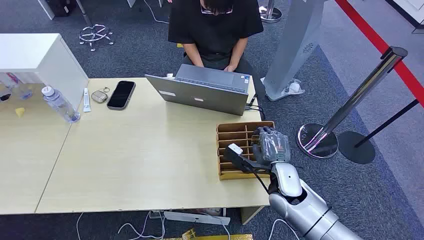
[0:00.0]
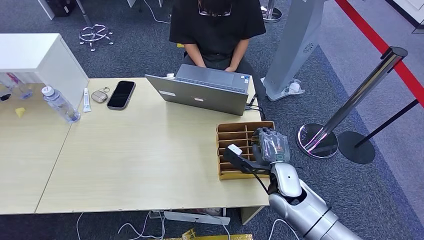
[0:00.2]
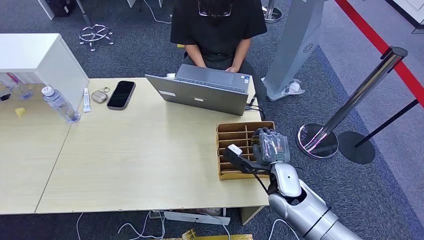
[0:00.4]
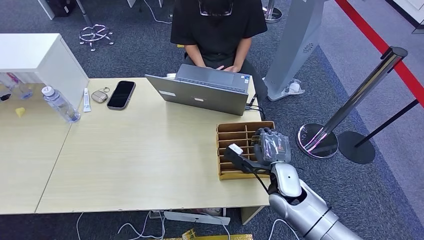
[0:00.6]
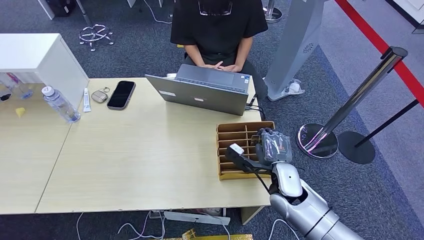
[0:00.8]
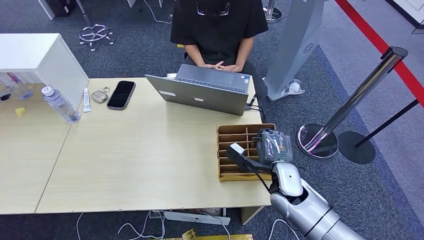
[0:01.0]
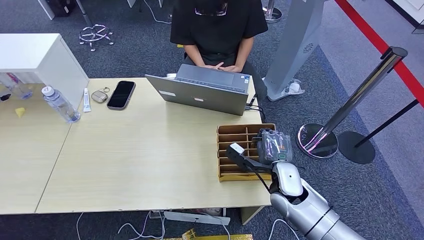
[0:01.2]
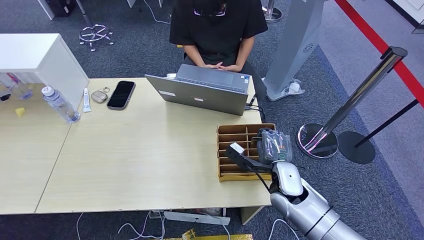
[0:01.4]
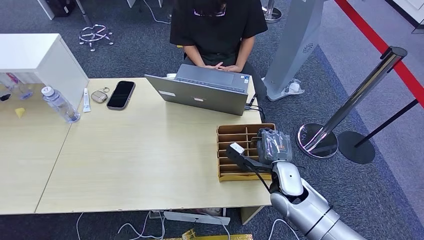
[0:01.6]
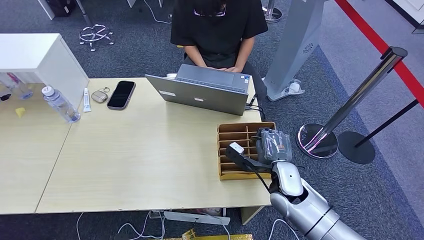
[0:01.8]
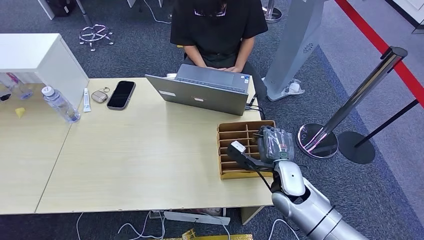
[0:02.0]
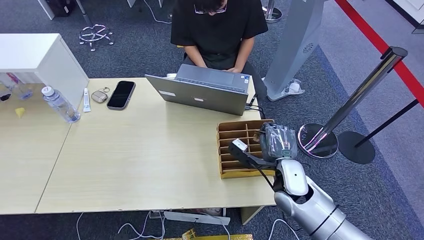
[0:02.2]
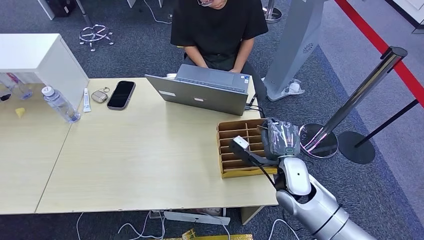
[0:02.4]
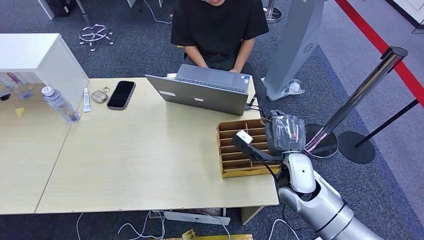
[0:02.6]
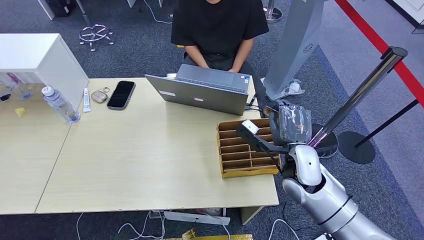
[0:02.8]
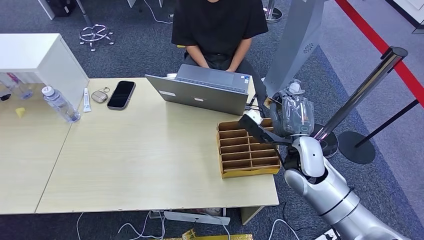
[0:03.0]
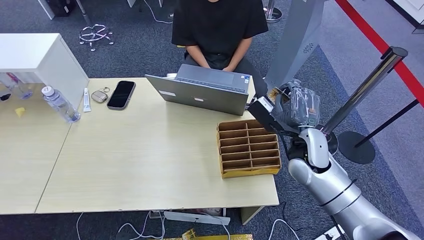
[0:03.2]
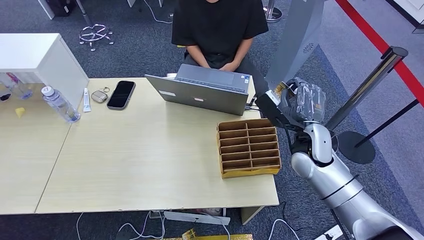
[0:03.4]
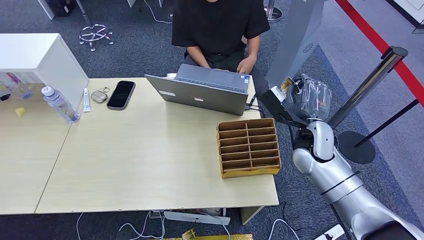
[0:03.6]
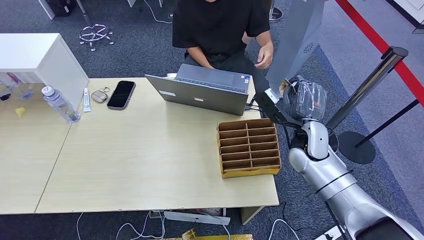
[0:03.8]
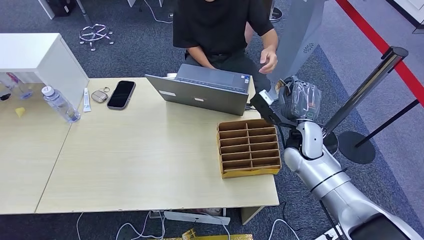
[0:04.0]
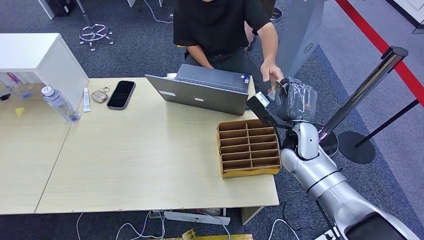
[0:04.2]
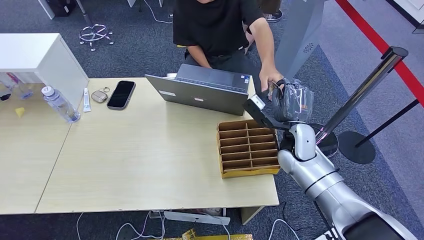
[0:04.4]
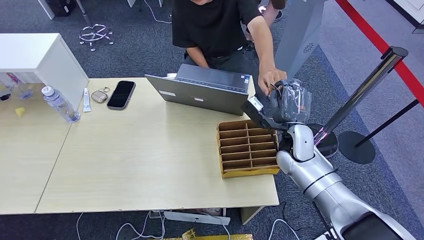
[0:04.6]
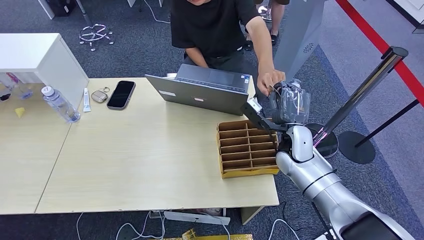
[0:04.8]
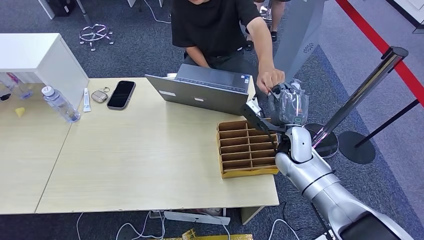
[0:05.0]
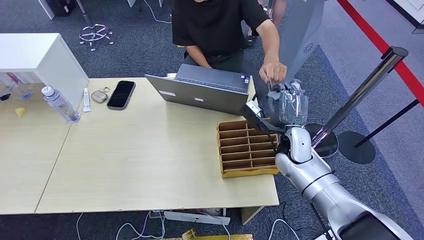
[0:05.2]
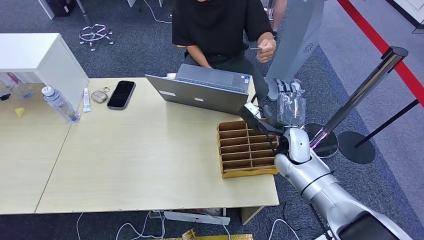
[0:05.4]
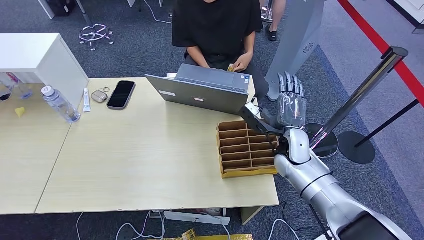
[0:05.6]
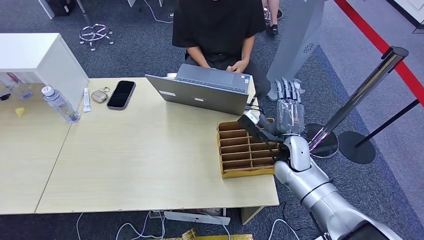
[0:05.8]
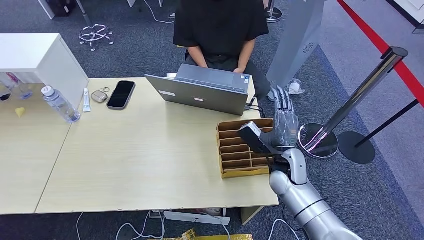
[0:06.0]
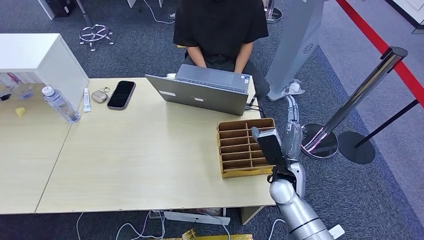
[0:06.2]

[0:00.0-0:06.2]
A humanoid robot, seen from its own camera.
Step, 0:00.0 to 0:03.0: Pick up the room card from the card holder.
Step, 0:03.4 to 0:06.2: Hand the room card to the target.
0:01.6 to 0:03.2: The right hand is displaced upward by some 10 cm.
0:03.2 to 0:04.6: The right hand moves roughly 5 cm.
0:04.6 to 0:06.2: The right hand travels backward and downward by roughly 10 cm.

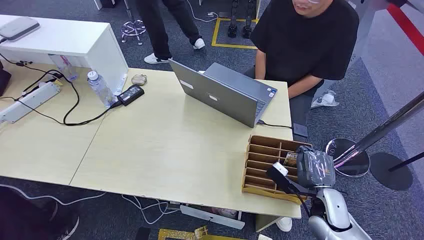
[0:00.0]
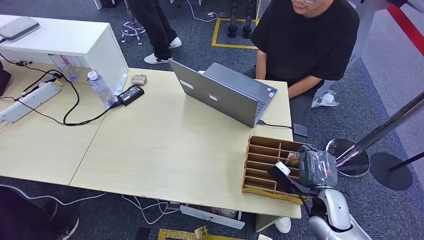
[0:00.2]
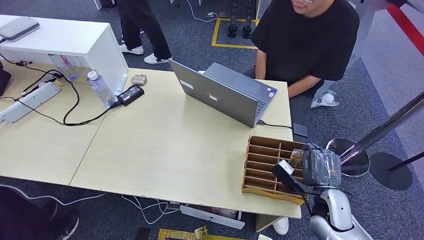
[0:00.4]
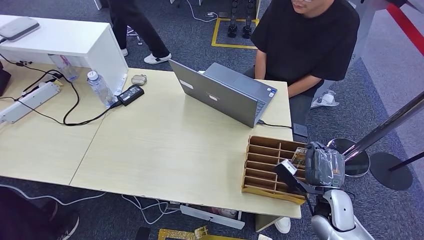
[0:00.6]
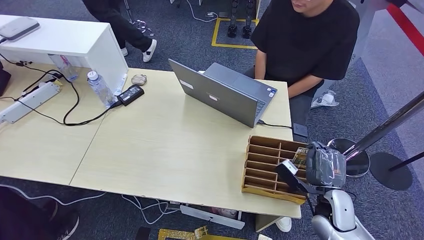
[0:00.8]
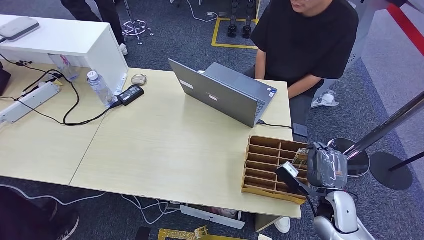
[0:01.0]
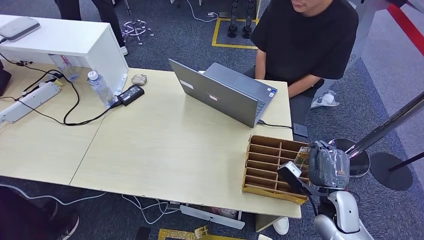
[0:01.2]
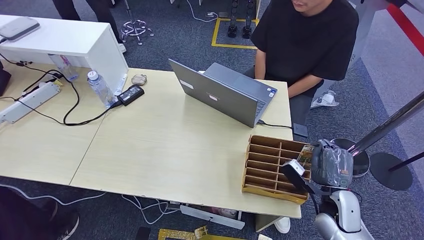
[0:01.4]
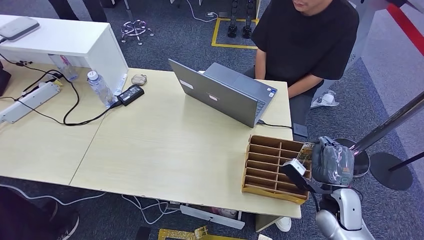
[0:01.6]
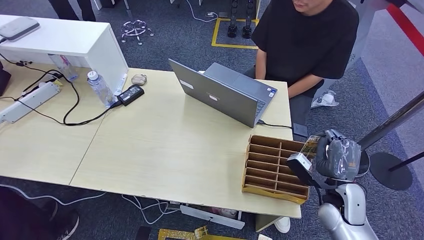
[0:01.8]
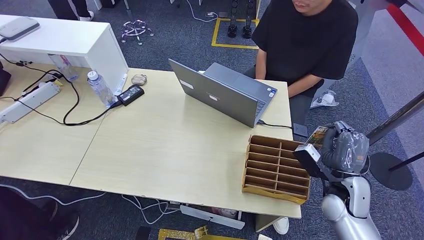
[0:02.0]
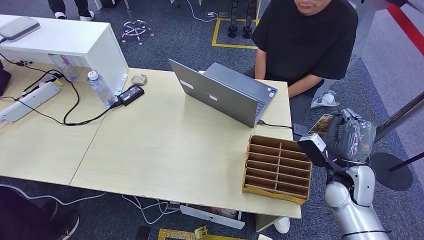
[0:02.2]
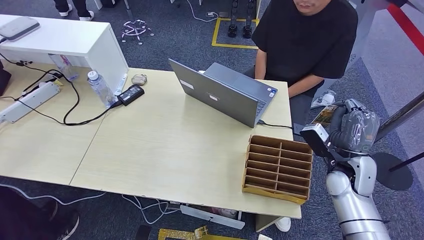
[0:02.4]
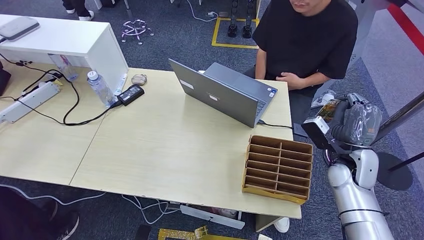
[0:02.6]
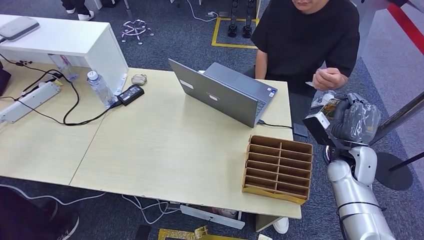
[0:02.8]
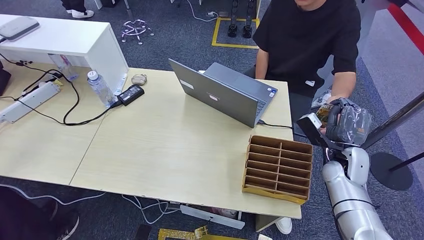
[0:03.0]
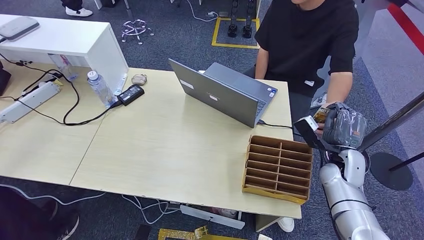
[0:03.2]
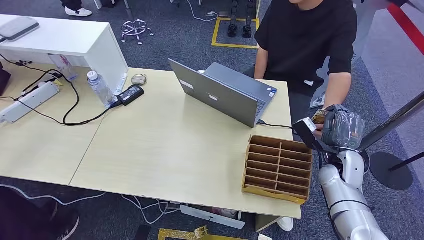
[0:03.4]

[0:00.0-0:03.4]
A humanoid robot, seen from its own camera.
Step, 0:00.0 to 0:02.2: Pick up the room card from the card holder.
Step, 0:02.4 to 0:03.2: Hand the room card to the target.
0:01.6 to 0:03.4: The right hand travels forward by roughly 10 cm.
